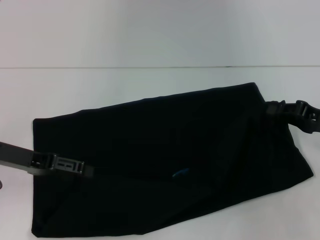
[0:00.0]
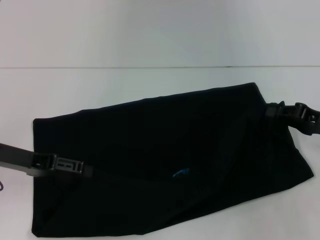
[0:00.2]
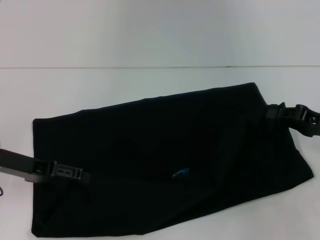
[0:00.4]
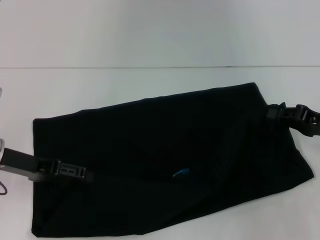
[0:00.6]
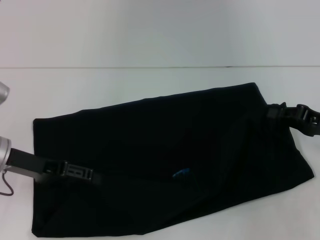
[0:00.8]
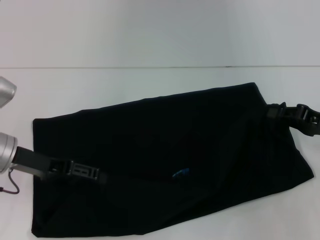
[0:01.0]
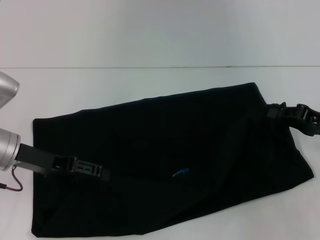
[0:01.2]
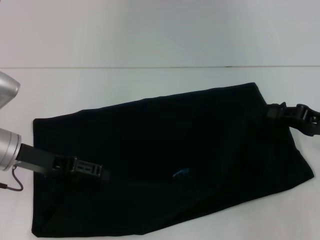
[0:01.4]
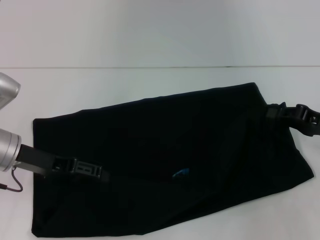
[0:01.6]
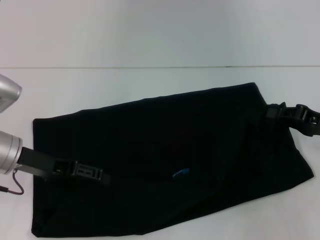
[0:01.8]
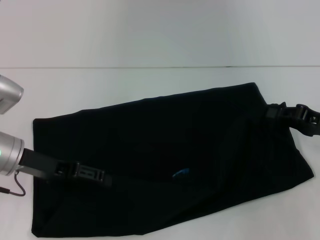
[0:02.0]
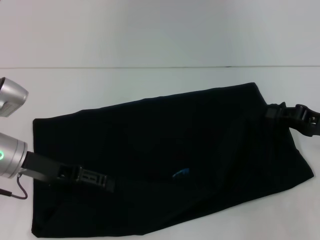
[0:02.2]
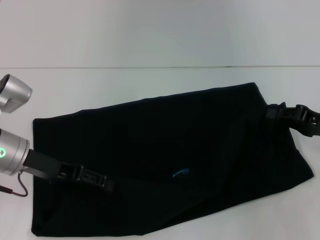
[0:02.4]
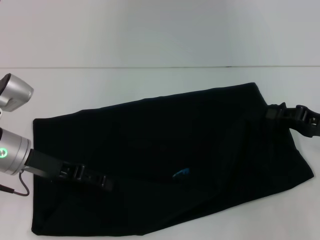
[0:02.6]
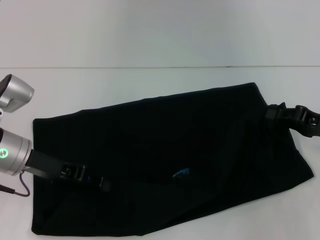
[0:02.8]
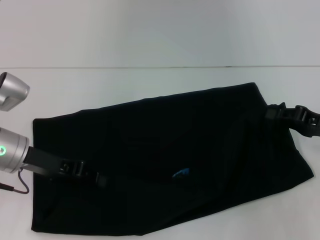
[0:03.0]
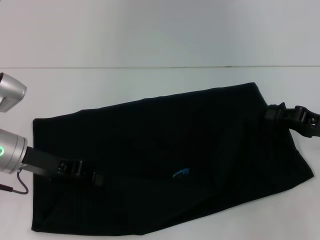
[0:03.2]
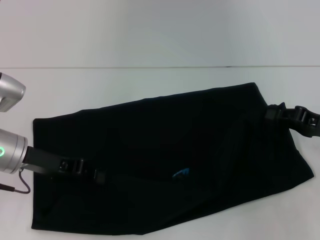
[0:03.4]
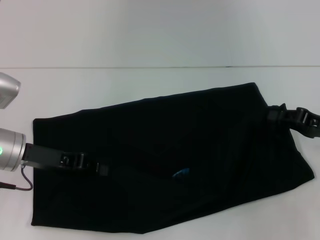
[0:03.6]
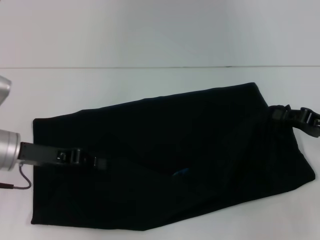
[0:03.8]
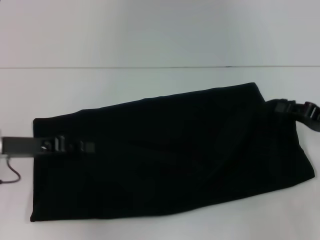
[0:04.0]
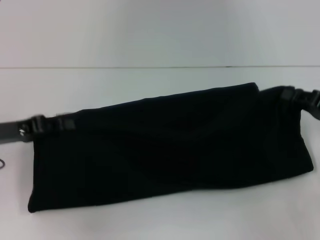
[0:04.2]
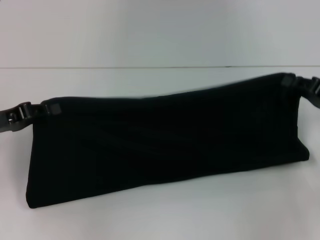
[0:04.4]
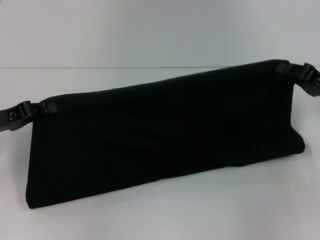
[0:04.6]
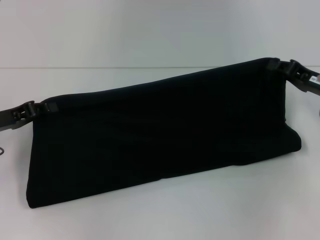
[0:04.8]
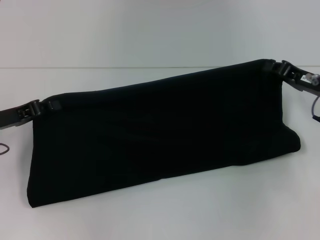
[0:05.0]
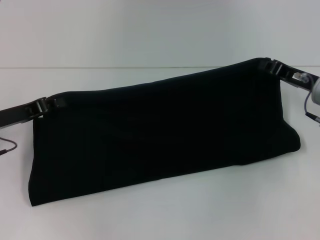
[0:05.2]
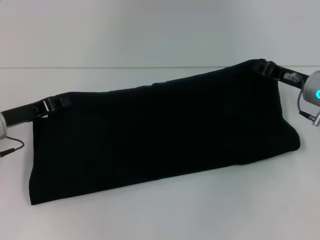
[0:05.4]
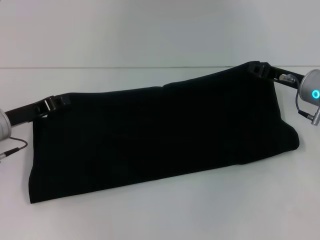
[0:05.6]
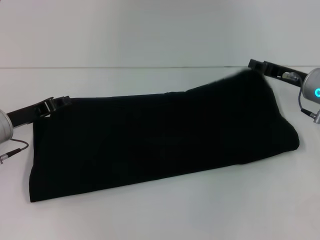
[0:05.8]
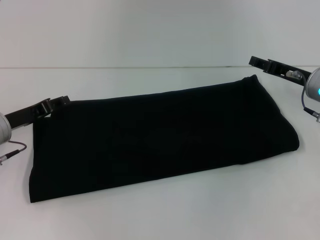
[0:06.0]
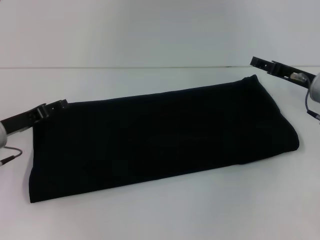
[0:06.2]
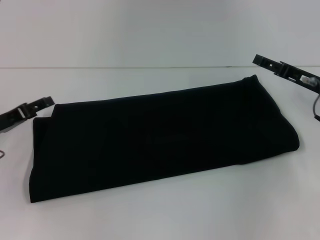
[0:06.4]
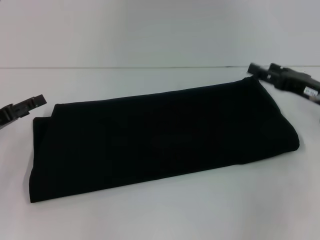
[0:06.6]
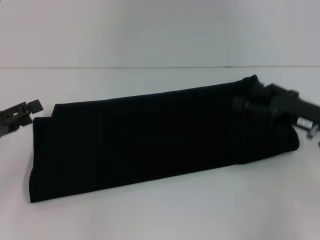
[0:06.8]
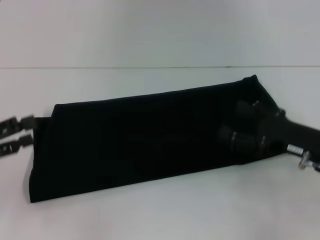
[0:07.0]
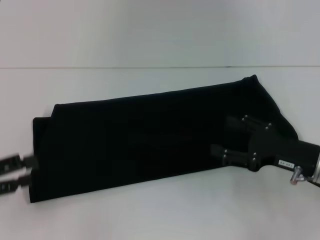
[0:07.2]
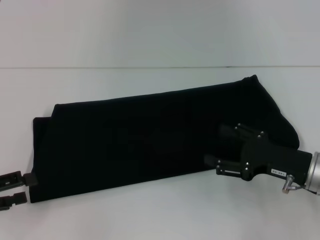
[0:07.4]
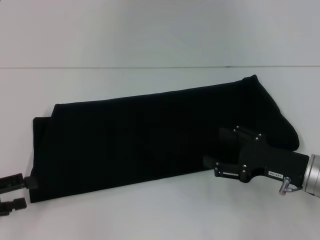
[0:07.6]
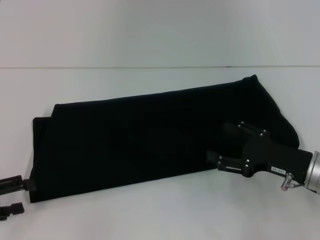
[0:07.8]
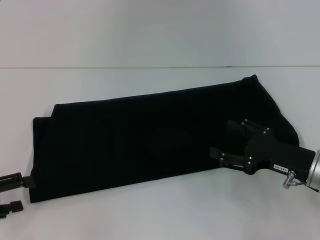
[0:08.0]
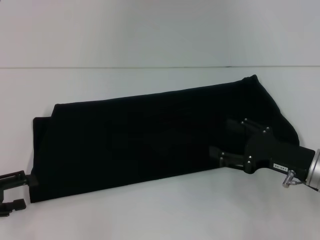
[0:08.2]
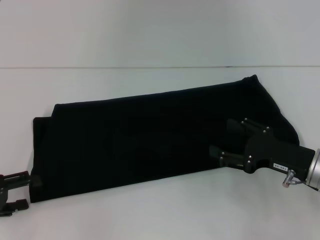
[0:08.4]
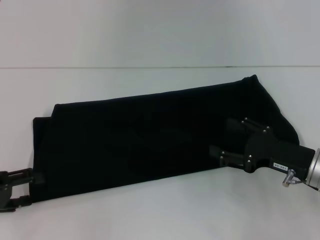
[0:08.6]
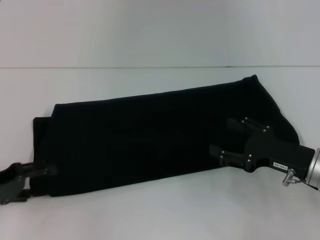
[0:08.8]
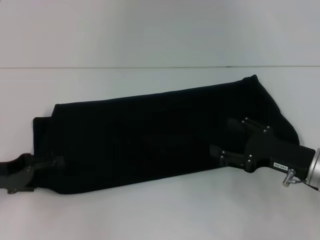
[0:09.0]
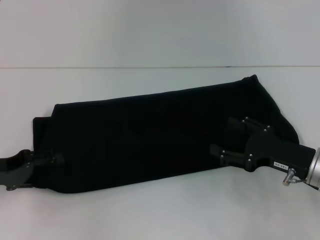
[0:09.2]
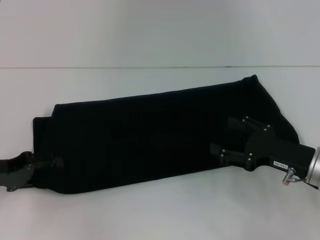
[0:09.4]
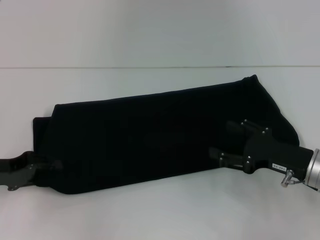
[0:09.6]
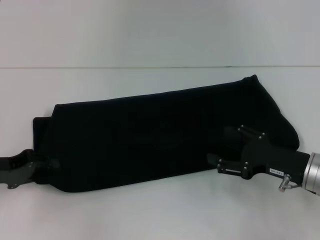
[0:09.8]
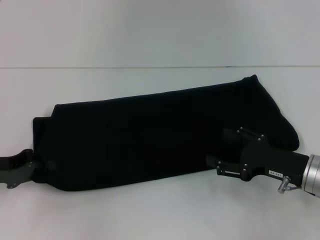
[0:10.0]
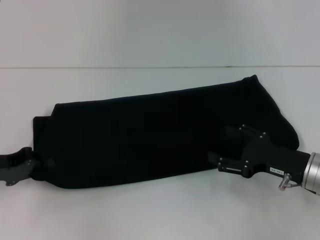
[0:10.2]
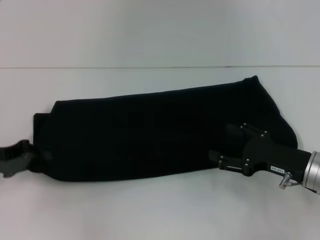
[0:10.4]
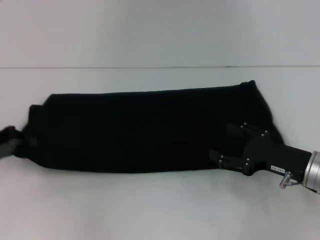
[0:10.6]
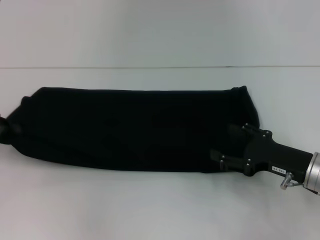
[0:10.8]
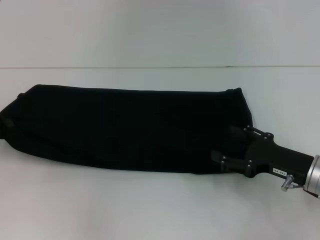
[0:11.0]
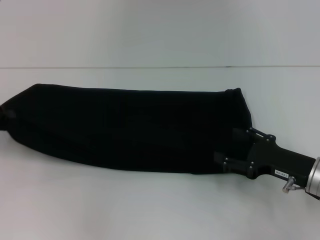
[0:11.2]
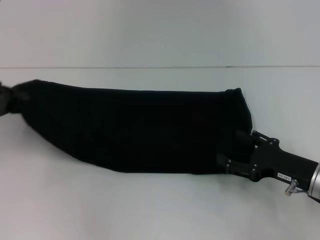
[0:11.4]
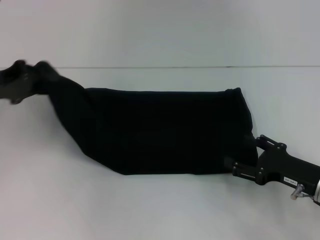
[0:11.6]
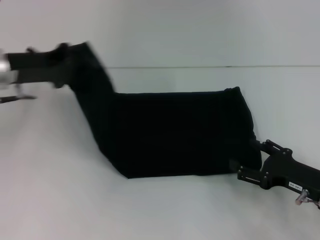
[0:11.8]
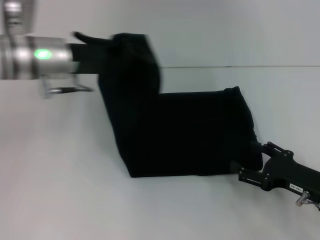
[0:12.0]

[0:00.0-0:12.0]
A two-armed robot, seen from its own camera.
Step, 0:00.0 to 0:06.0: Fold the clothes with your right hand.
0:00.0 to 0:01.6: The grippers move only a little.
0:01.6 to 0:03.0: The left gripper closes up.
0:03.0 to 0:04.4: The left gripper heads to the left, covering about 10 cm, and closes up.
0:04.4 to 0:06.0: The right gripper is displaced forward and to the left by some 10 cm; the left gripper moves about 5 cm.
0:06.0 to 0:07.6: The right gripper goes approximately 15 cm backward, and opens its fingers. The left gripper goes roughly 15 cm backward and to the left, and opens its fingers.
0:07.6 to 0:09.0: The left gripper heads forward, covering about 5 cm.
0:09.0 to 0:10.4: The left gripper closes.
0:10.4 to 0:12.0: The left gripper moves to the right, forward and upward, about 20 cm.

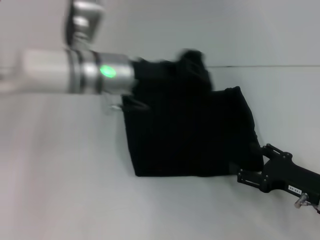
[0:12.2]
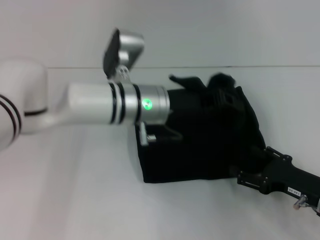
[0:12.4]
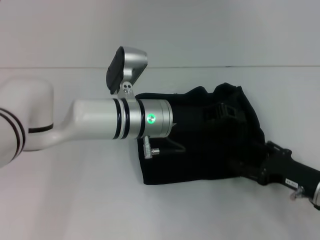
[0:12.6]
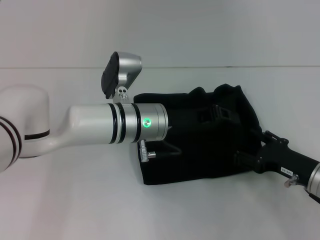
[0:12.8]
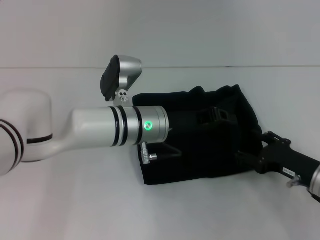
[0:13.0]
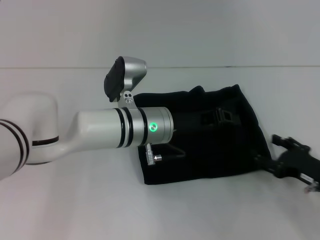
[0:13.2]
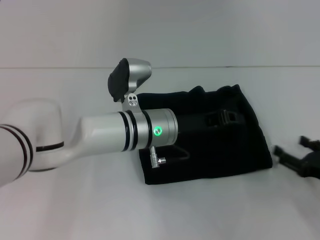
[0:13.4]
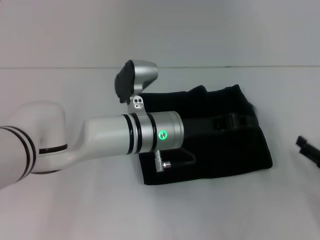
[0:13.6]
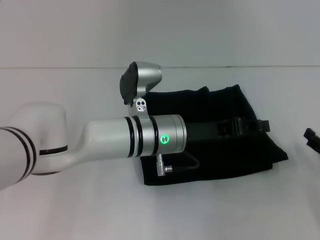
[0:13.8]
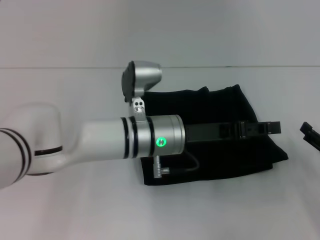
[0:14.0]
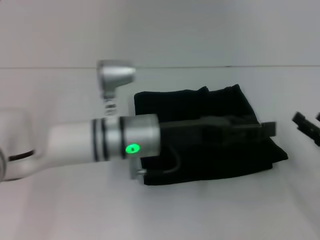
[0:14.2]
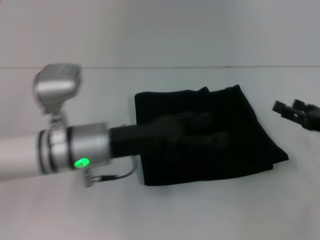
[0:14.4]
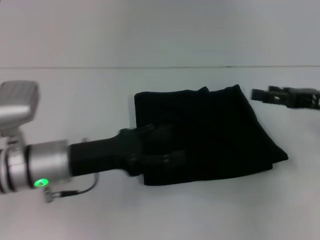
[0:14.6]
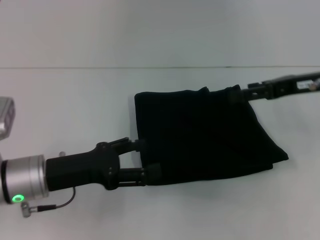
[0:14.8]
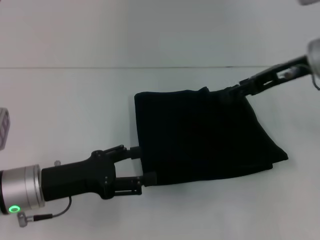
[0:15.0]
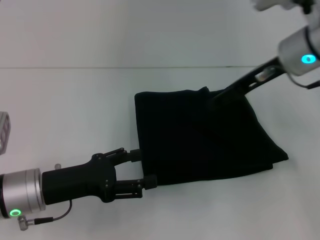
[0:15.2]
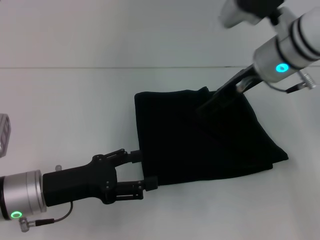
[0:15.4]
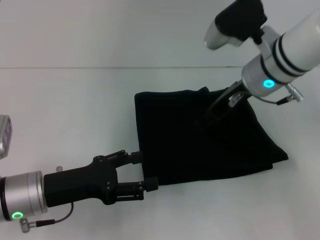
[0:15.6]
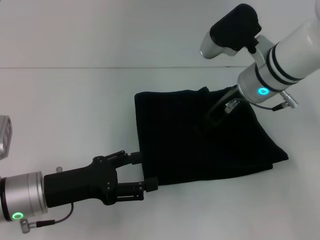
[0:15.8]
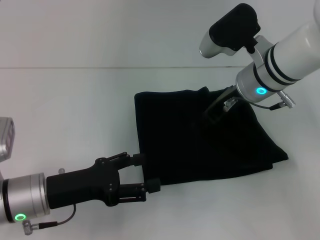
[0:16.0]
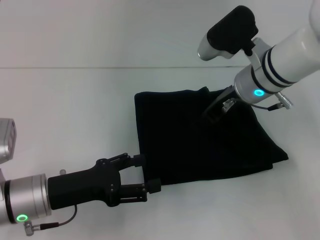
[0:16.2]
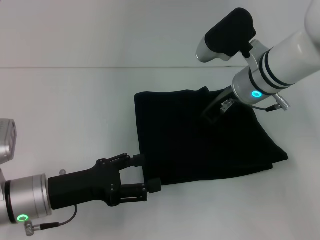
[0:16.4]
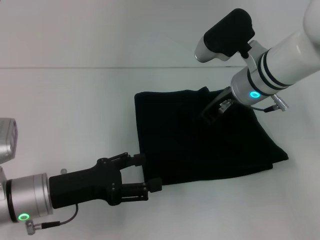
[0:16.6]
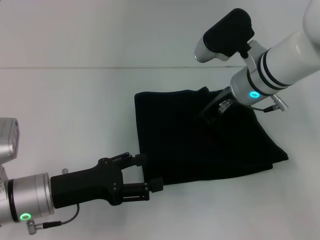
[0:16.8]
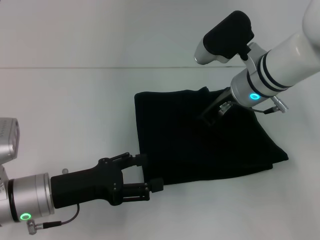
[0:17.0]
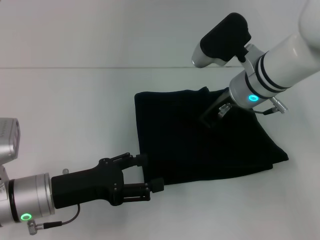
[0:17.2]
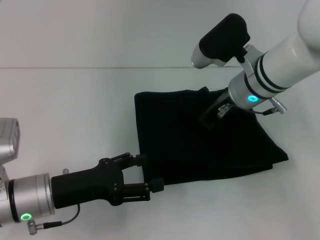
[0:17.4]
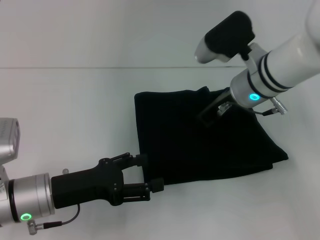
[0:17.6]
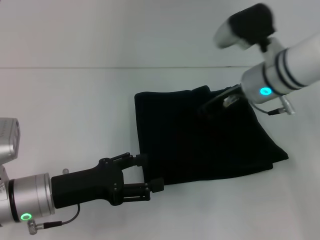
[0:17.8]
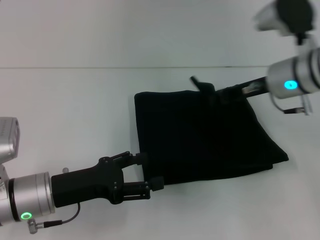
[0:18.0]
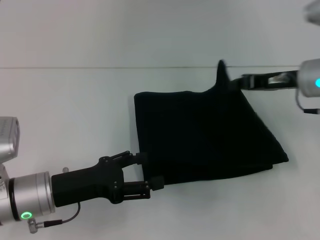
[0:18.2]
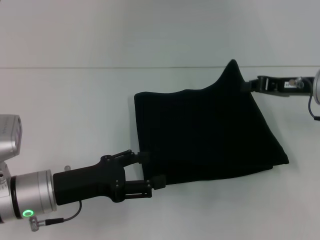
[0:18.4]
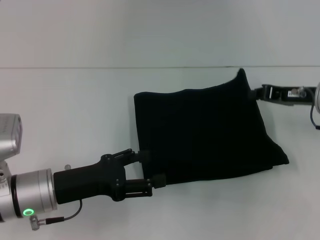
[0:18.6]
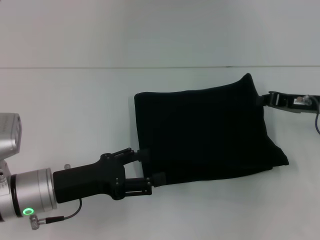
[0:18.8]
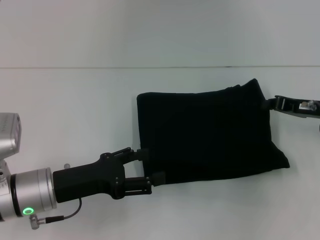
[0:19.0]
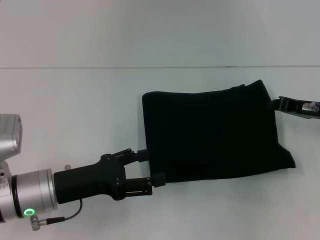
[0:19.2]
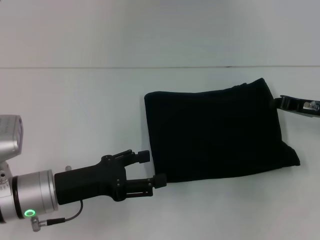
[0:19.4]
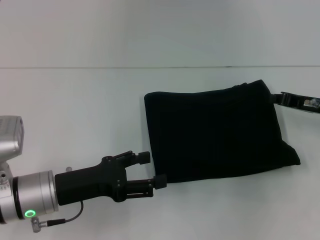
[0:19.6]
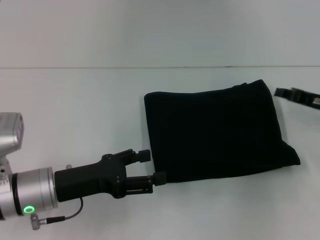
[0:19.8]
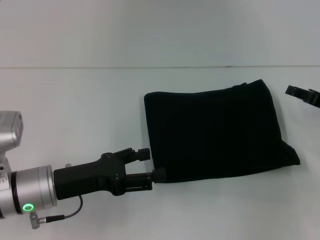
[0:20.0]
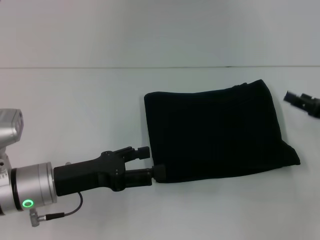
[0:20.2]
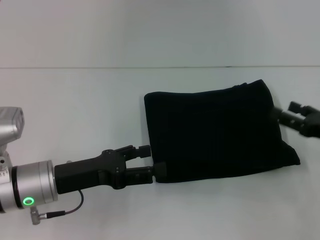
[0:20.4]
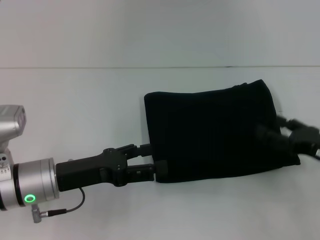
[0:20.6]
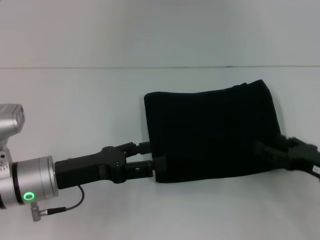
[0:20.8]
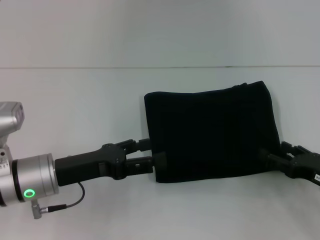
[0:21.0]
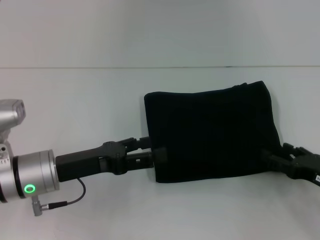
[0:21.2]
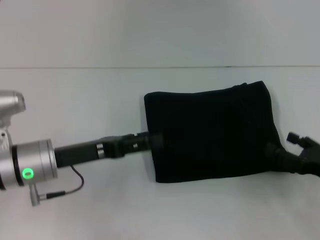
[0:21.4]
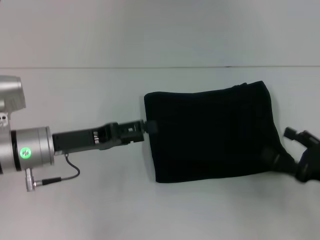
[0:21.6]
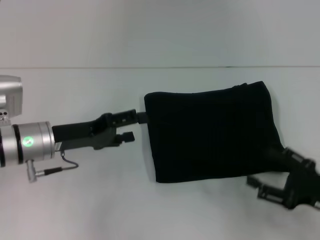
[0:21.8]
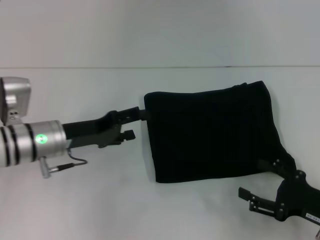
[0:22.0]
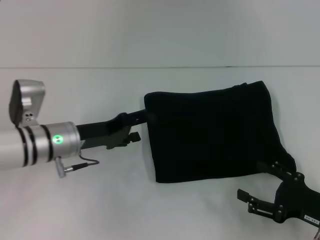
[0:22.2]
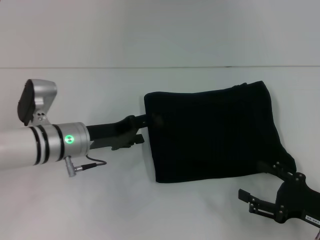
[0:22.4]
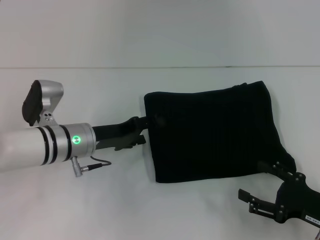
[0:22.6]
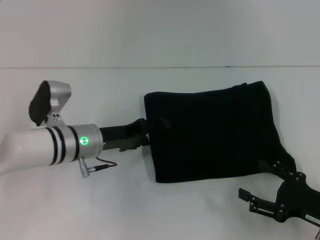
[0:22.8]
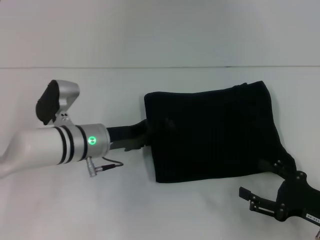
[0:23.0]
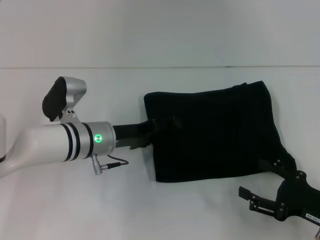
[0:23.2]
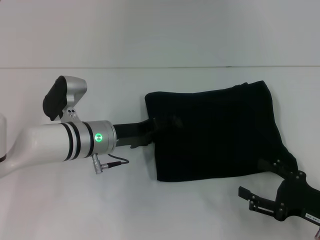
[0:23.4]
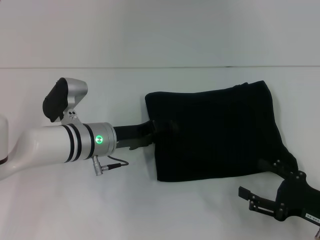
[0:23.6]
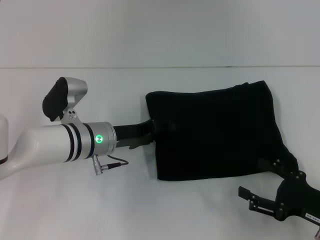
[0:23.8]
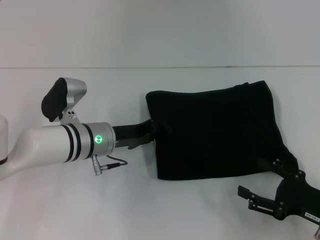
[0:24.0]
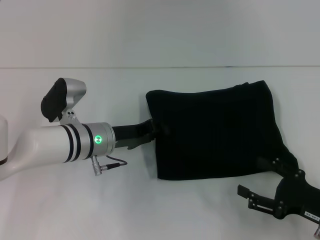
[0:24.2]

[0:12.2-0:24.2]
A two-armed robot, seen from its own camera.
0:12.2 to 0:13.8: The right gripper moves to the right, roughly 5 cm. Meanwhile the left gripper heads to the right, downward and backward, covering roughly 10 cm.
0:13.8 to 0:15.2: The left gripper travels to the left and backward by approximately 20 cm, and opens up. Meanwhile the right gripper goes about 30 cm upward, to the left and forward.
0:15.2 to 0:16.6: The right gripper heads downward and to the left, covering roughly 10 cm.
0:16.6 to 0:18.2: The right gripper goes about 10 cm to the right, and closes up.
0:18.2 to 0:19.8: The right gripper is displaced to the right and downward by about 10 cm.
0:19.8 to 0:21.2: The right gripper heads backward and downward, covering some 15 cm, and opens its fingers.
0:21.2 to 0:22.6: The right gripper changes place by roughly 5 cm. The left gripper moves forward, roughly 5 cm.
0:22.6 to 0:24.2: The left gripper closes up.
